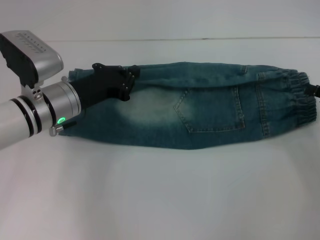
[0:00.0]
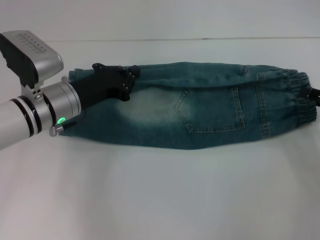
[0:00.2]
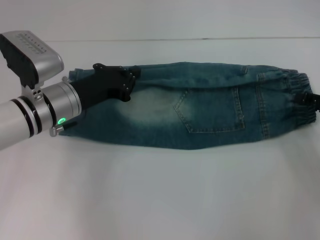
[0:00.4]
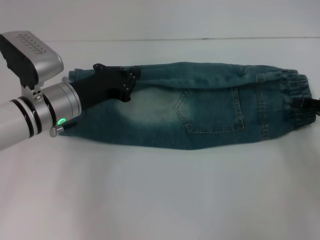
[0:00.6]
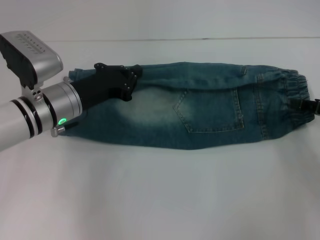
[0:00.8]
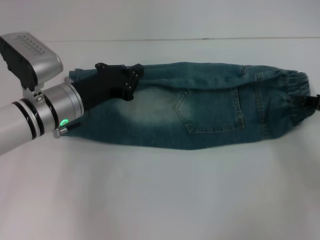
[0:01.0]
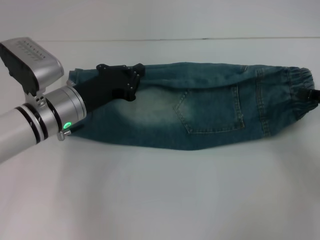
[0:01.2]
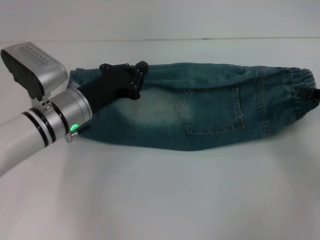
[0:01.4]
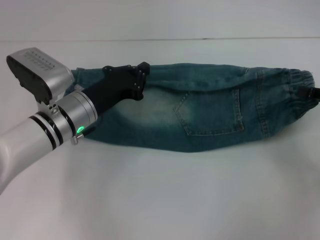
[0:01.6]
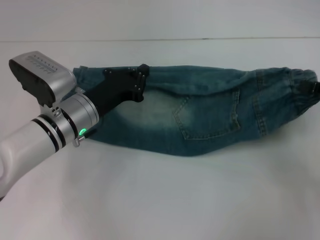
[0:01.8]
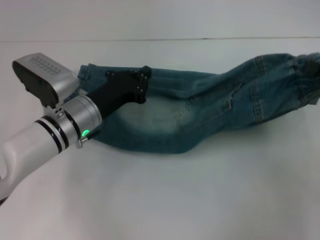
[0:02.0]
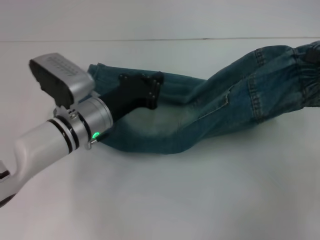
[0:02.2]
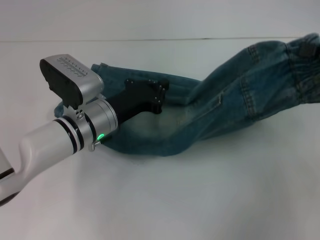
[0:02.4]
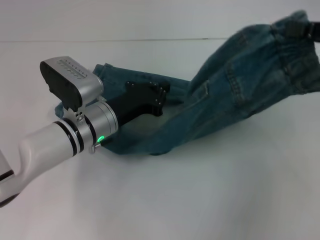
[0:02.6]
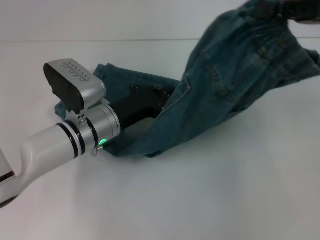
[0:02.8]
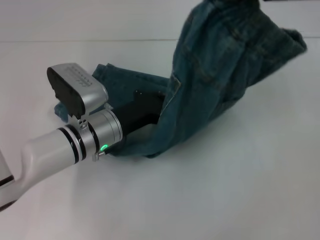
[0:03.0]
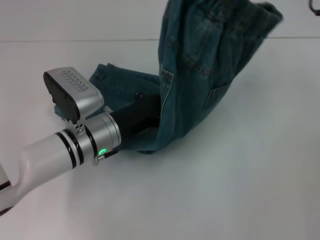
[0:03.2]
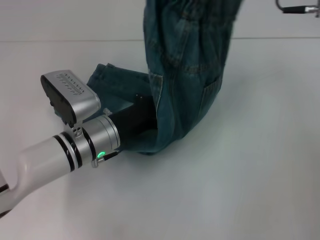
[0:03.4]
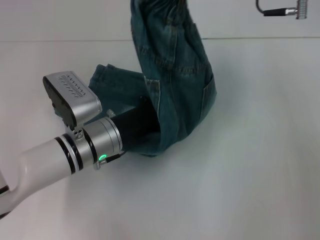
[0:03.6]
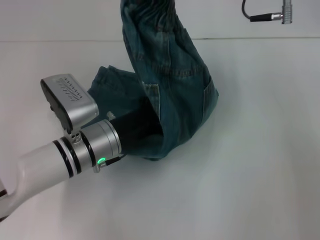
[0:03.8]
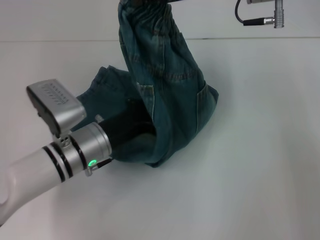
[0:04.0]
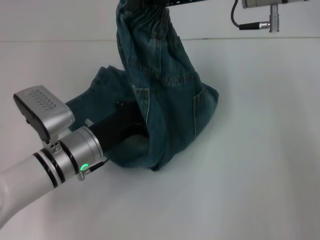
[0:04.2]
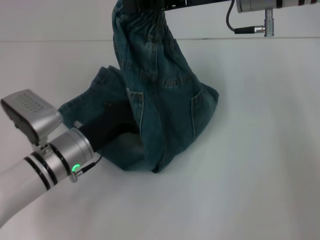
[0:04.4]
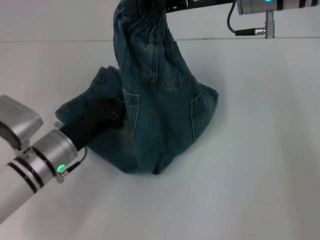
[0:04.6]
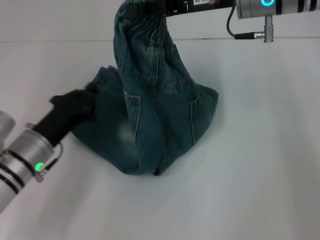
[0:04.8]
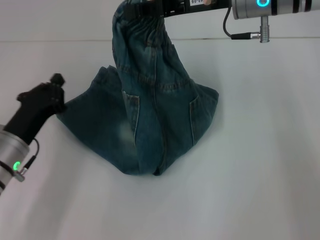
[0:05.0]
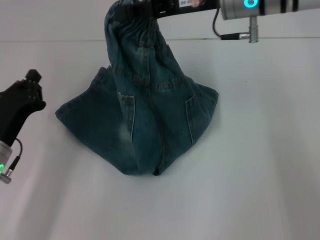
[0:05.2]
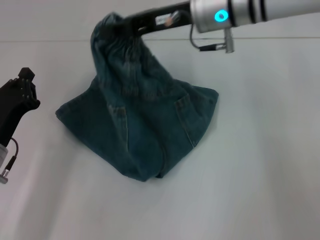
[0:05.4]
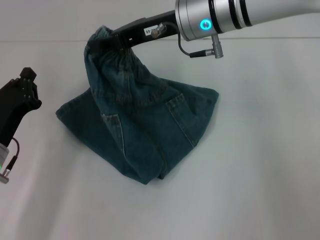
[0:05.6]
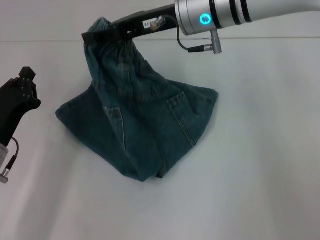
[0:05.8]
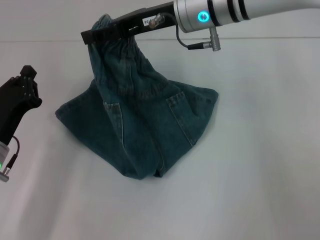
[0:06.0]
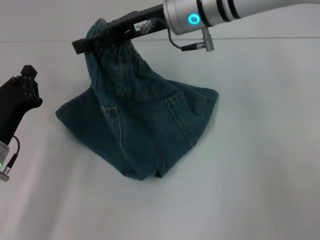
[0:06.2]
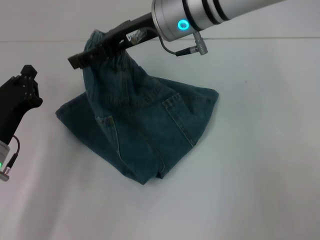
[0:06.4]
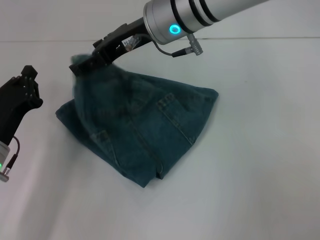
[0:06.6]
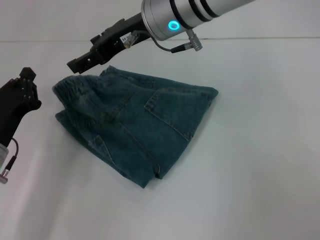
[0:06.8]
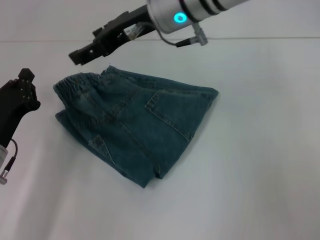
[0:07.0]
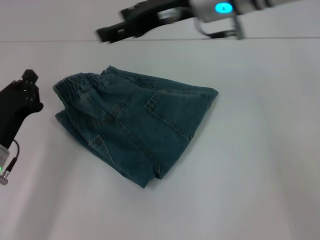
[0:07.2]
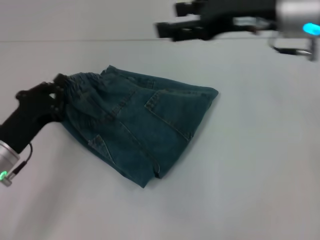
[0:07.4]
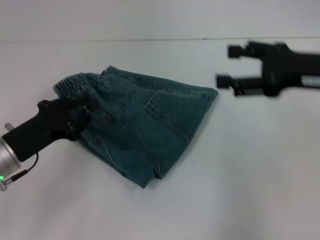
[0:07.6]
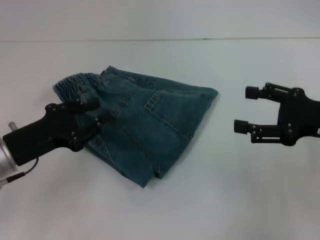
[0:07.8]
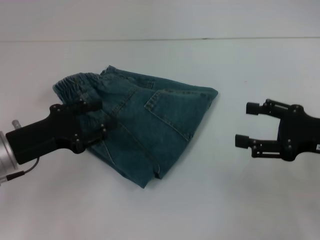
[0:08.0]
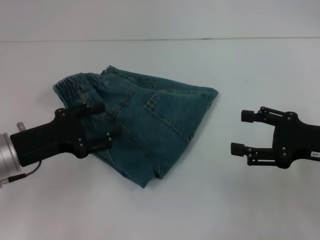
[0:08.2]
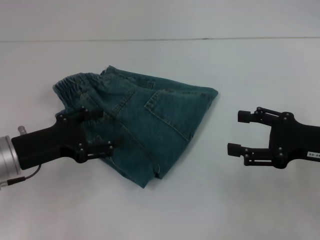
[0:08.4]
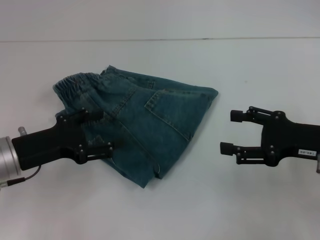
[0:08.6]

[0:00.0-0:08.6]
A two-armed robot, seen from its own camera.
Step, 0:01.6 to 0:04.2: Press the middle of the pants with your left hand.
Step, 0:04.4 to 0:07.2: Fold to the left with your right hand.
0:00.0 to 0:01.4: The right gripper closes.
0:01.4 to 0:02.8: The right gripper moves upward and to the left, approximately 15 cm.
0:02.8 to 0:04.4: The left gripper moves approximately 5 cm, while the right gripper goes about 15 cm to the left and forward.
0:04.4 to 0:05.8: The left gripper goes roughly 10 cm to the left; the right gripper heads to the left, covering some 5 cm.
0:05.8 to 0:07.2: The right gripper opens its fingers.
0:07.2 to 0:08.6: The right gripper moves to the right, downward and backward, some 25 cm. Meanwhile the left gripper opens its fingers.

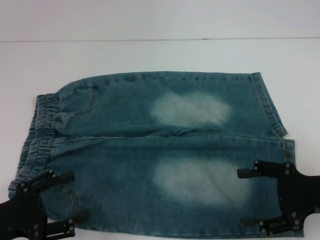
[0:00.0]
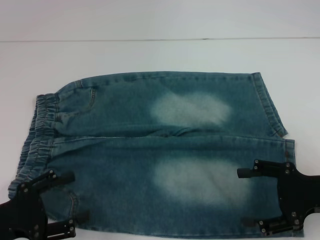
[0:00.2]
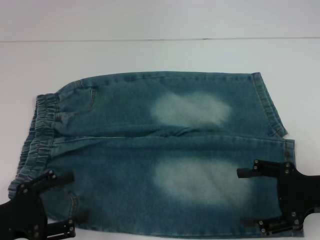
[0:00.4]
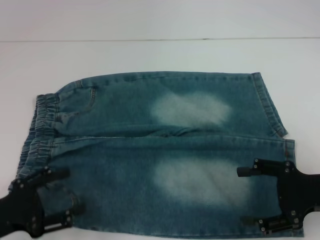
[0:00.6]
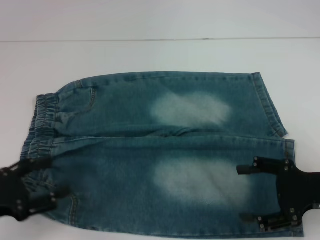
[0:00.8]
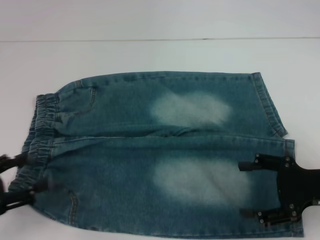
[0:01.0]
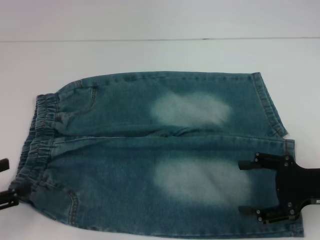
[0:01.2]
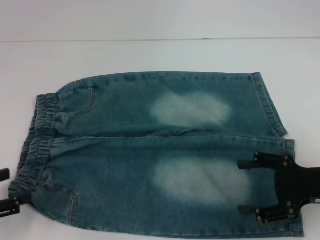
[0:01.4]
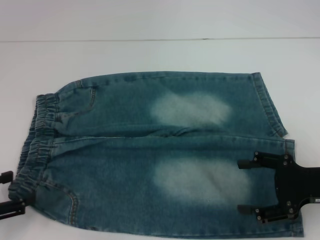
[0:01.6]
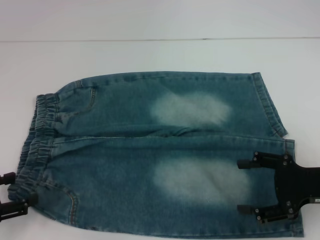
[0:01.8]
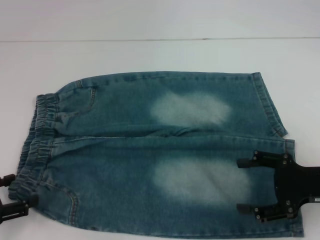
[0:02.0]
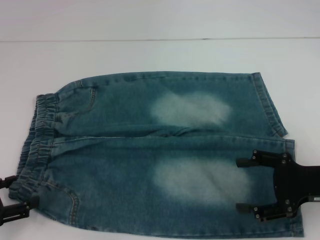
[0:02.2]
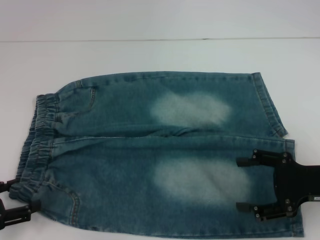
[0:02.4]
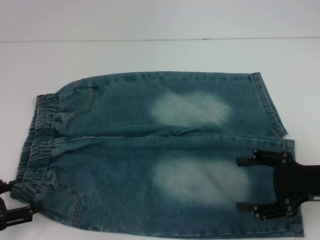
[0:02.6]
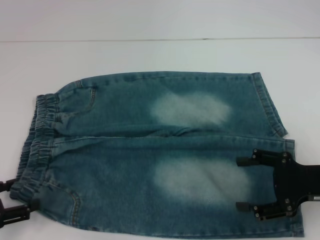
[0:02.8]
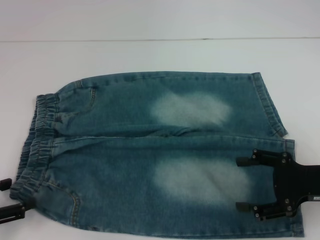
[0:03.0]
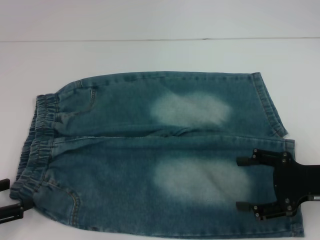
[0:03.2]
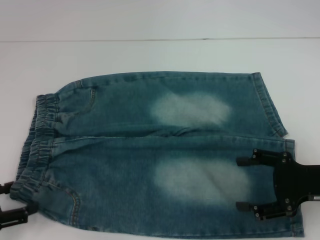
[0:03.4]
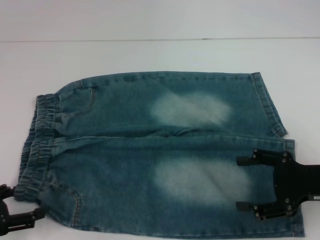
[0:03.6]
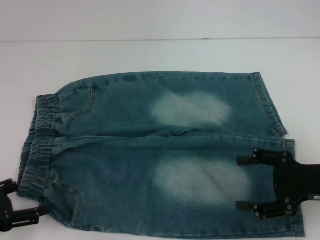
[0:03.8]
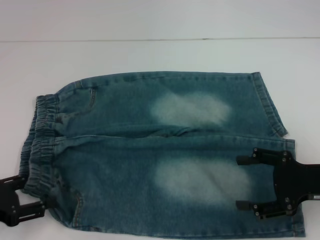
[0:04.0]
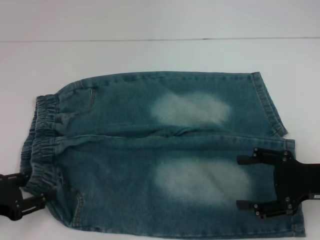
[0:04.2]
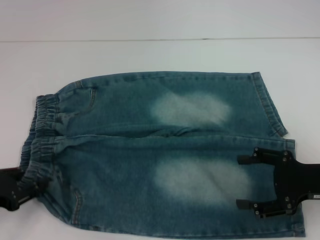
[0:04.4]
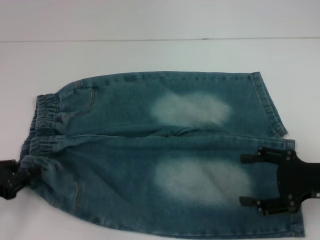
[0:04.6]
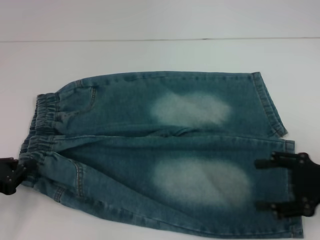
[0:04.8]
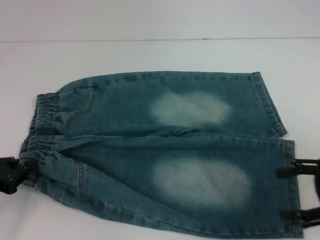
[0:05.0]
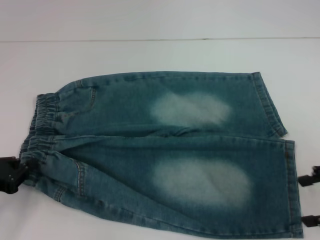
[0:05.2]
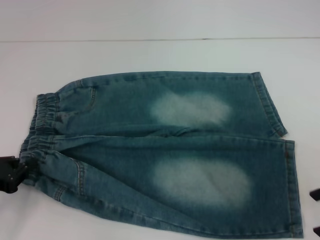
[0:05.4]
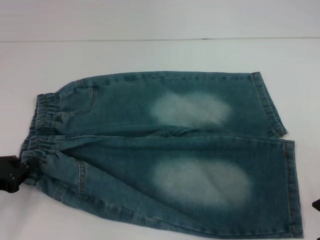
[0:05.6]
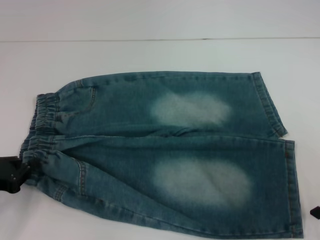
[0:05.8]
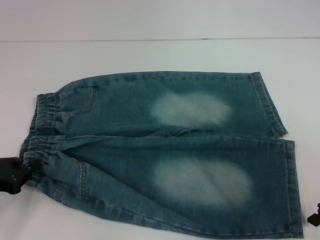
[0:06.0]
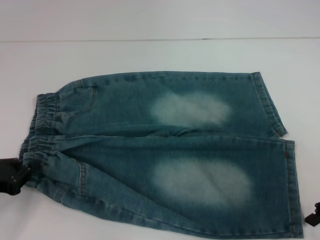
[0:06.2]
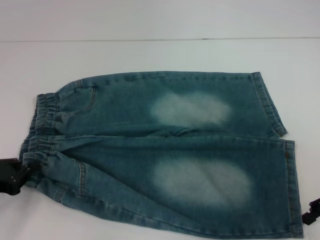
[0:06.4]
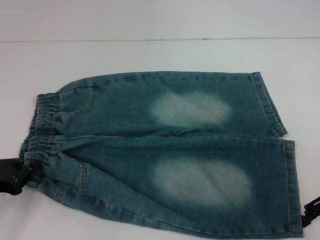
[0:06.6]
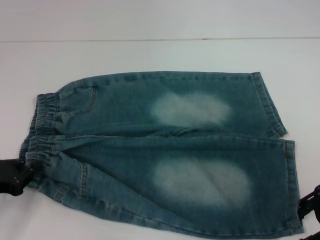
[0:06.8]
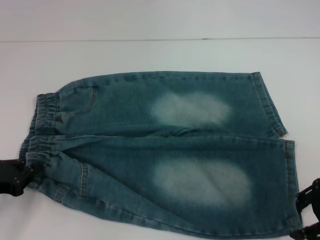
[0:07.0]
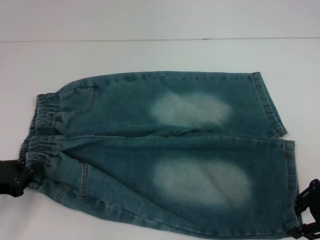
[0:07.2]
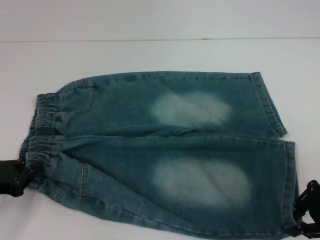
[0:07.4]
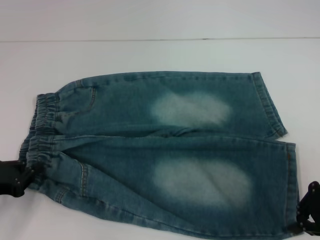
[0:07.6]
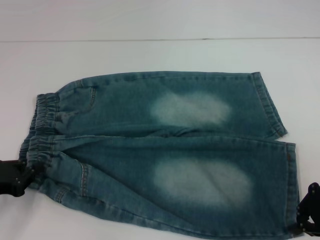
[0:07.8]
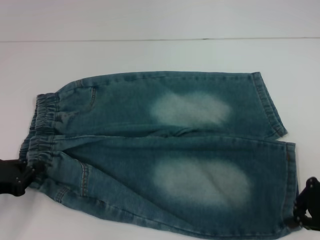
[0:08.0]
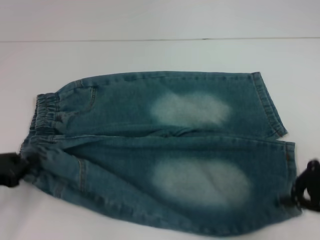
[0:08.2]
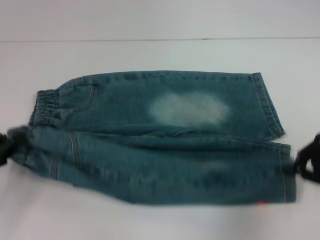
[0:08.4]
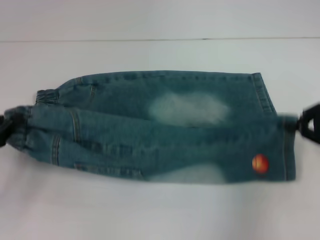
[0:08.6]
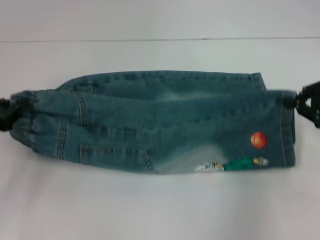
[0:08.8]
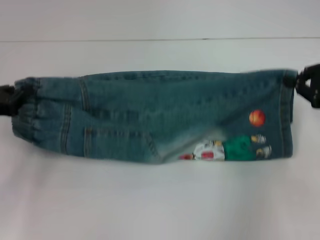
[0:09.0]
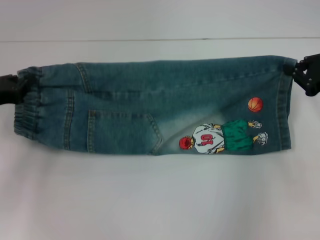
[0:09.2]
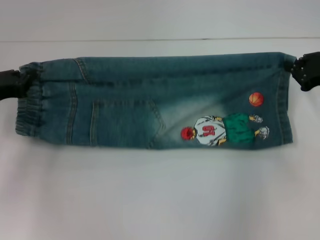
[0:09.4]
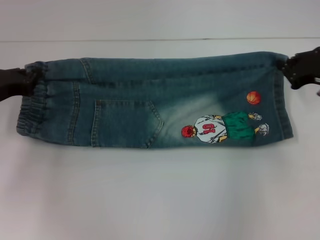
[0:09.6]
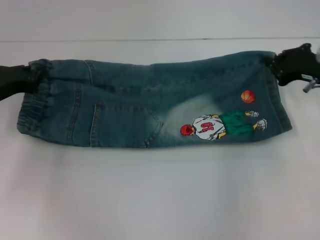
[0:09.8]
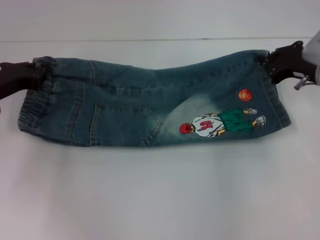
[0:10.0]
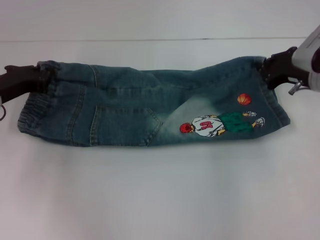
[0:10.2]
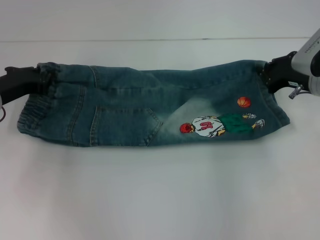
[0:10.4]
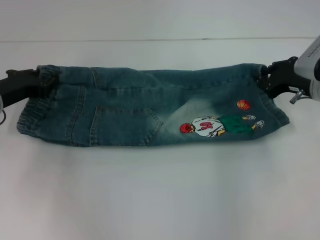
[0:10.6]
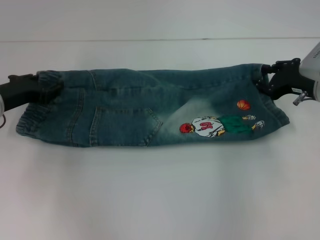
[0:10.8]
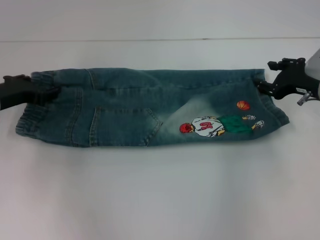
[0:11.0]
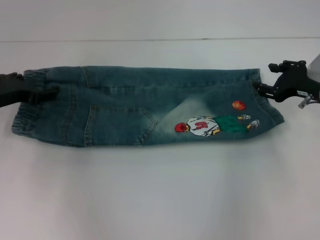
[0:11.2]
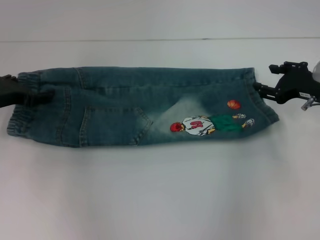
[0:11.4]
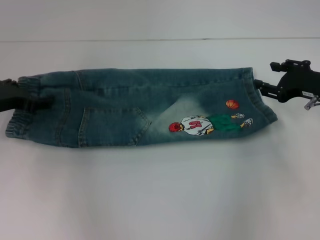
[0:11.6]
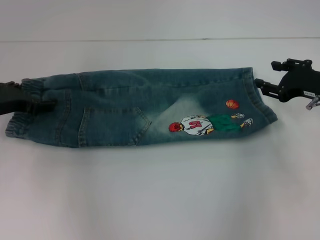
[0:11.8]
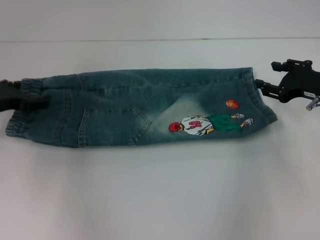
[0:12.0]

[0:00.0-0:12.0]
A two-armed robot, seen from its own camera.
Step, 0:00.0 to 0:04.8: Hold the lower left waistband with your left hand.
Step, 0:05.0 to 0:07.8: Grab the lower right pant leg with your right hand.
0:00.0 to 0:01.6: The left gripper travels to the left by approximately 5 cm.
0:01.6 to 0:04.4: There are only small adjustments of the grippers.
0:04.4 to 0:06.0: The right gripper moves some 5 cm, while the left gripper closes up.
0:06.0 to 0:07.6: The right gripper closes its fingers.
0:07.6 to 0:09.0: The left gripper heads forward and upward, covering approximately 10 cm; the right gripper goes about 5 cm forward.
0:09.0 to 0:10.4: The left gripper moves forward, roughly 5 cm. The right gripper shifts roughly 10 cm forward, downward and to the left.
0:10.4 to 0:12.0: The left gripper opens; the right gripper opens up.

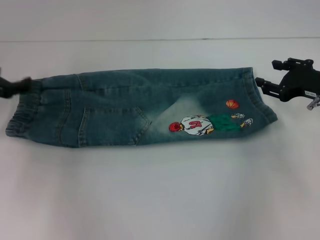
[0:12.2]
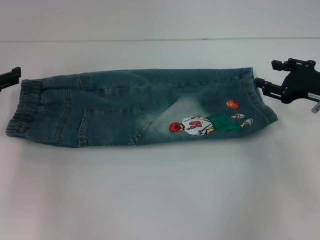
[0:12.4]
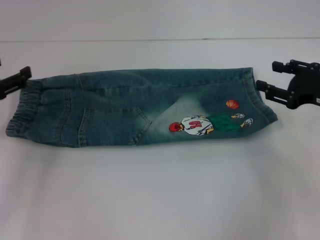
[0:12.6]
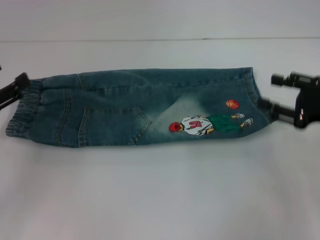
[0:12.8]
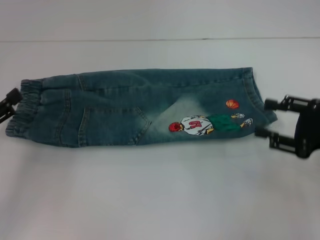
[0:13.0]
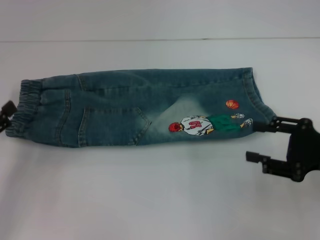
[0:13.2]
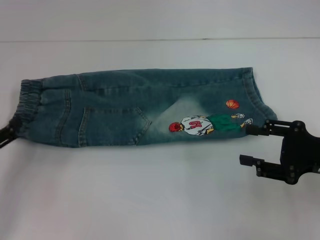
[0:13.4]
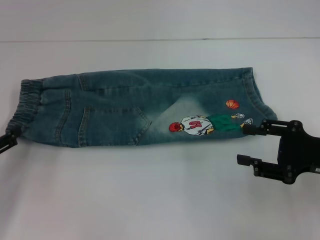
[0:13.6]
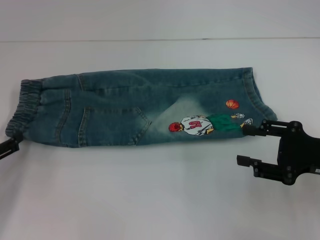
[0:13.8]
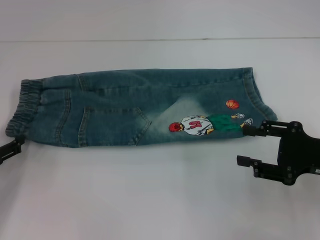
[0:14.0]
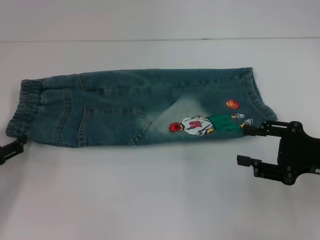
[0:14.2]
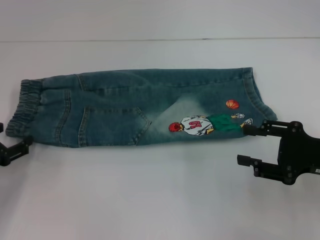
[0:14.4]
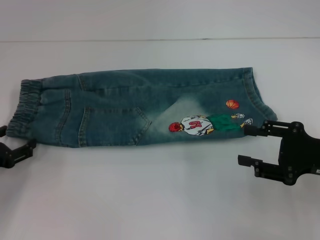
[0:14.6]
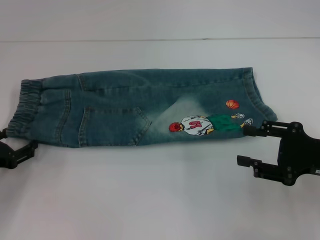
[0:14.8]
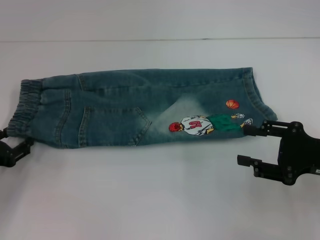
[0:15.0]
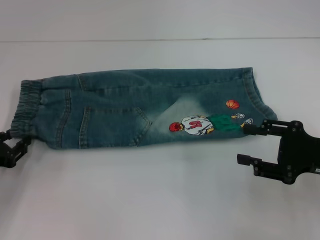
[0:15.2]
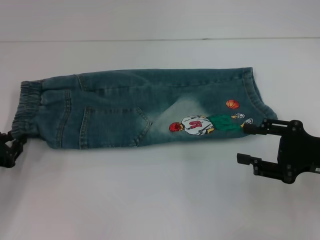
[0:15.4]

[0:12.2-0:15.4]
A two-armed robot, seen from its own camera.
0:12.2 to 0:13.8: The left gripper moves backward and downward, roughly 15 cm; the right gripper shifts about 10 cm backward.
0:13.8 to 0:15.4: The left gripper closes.
